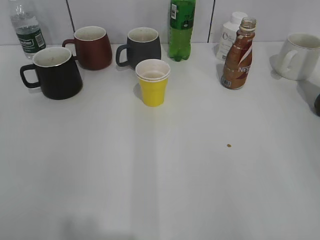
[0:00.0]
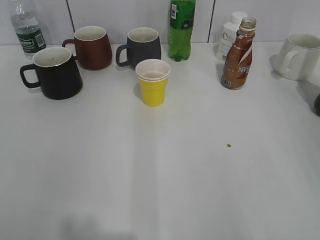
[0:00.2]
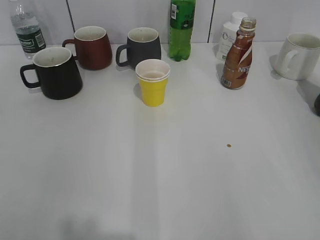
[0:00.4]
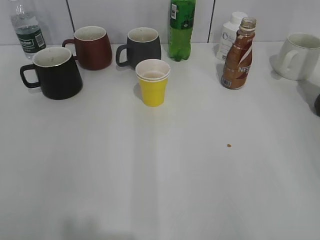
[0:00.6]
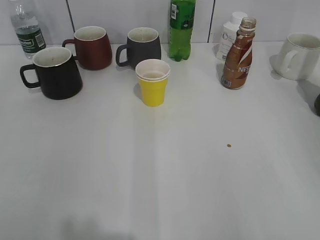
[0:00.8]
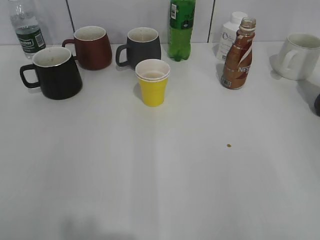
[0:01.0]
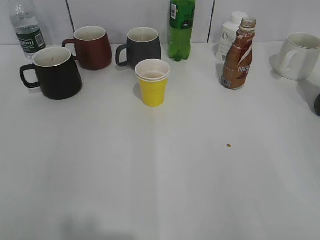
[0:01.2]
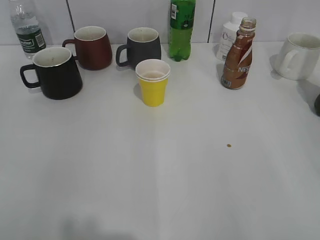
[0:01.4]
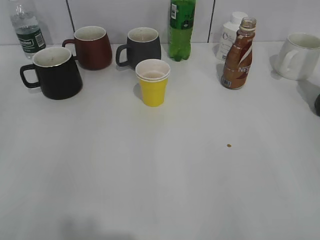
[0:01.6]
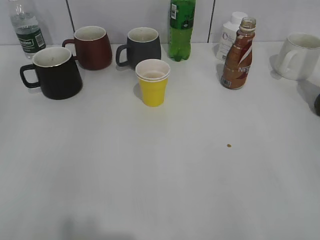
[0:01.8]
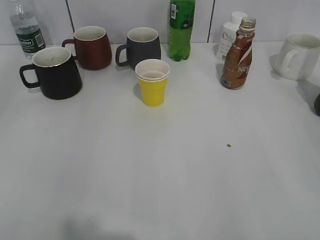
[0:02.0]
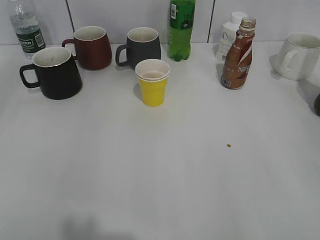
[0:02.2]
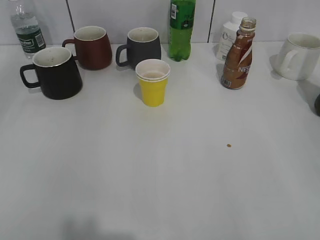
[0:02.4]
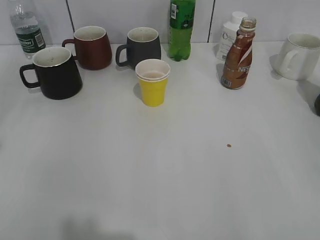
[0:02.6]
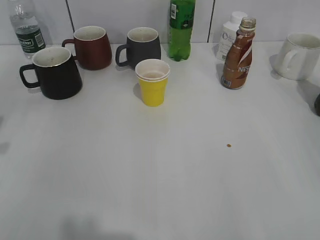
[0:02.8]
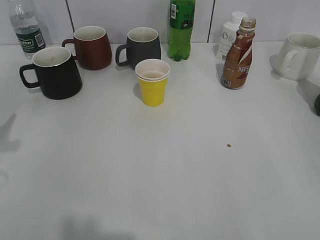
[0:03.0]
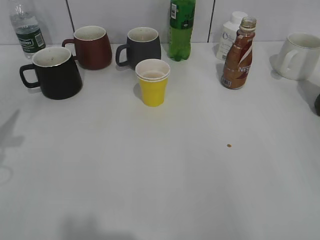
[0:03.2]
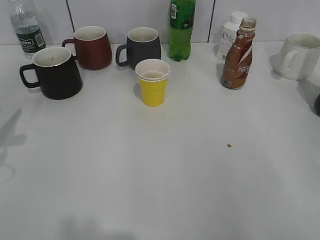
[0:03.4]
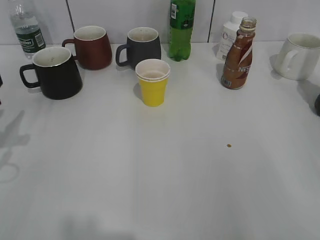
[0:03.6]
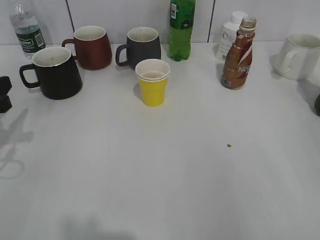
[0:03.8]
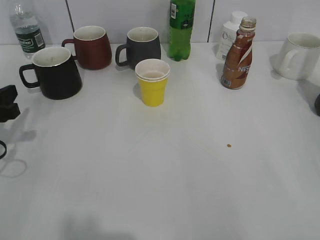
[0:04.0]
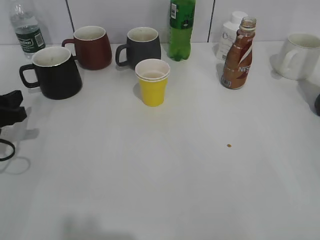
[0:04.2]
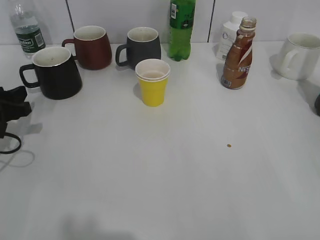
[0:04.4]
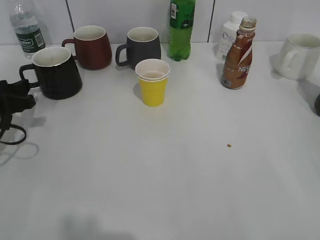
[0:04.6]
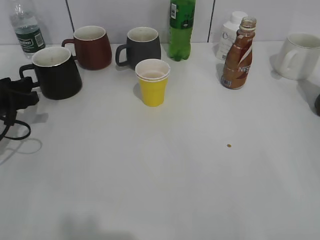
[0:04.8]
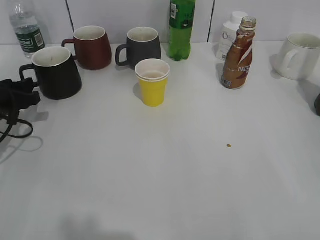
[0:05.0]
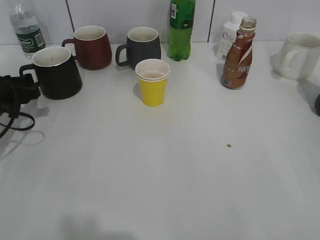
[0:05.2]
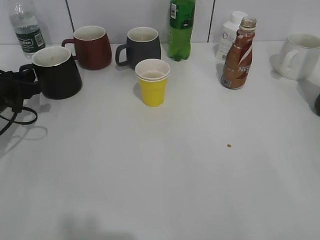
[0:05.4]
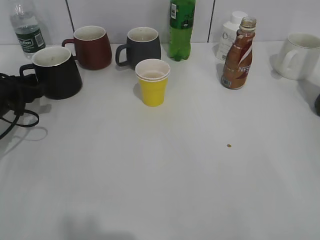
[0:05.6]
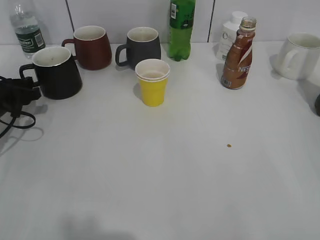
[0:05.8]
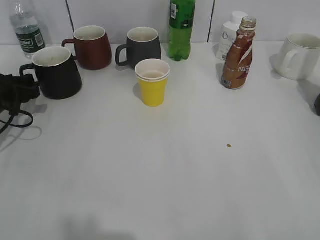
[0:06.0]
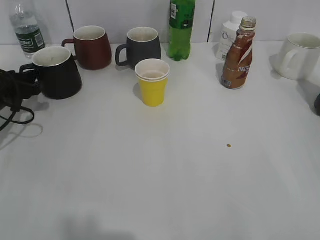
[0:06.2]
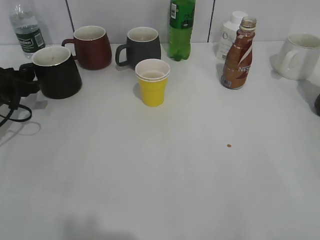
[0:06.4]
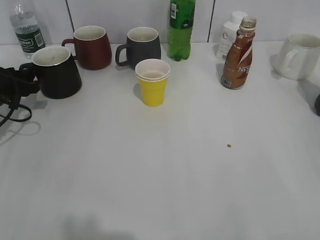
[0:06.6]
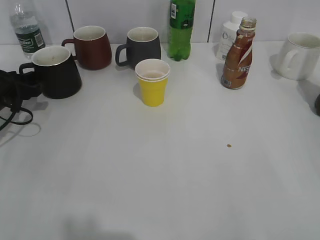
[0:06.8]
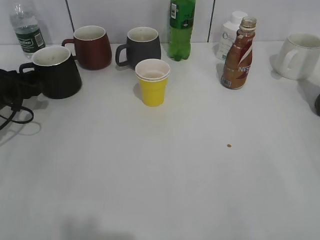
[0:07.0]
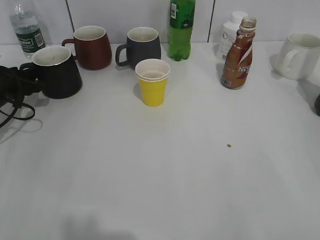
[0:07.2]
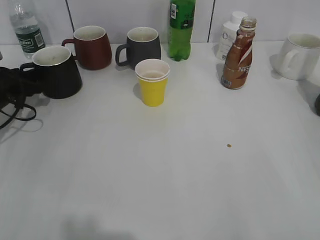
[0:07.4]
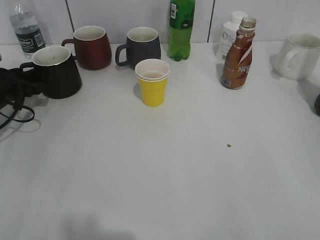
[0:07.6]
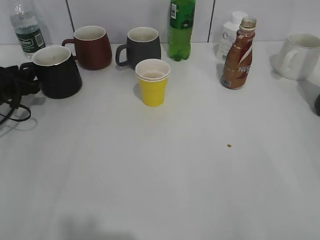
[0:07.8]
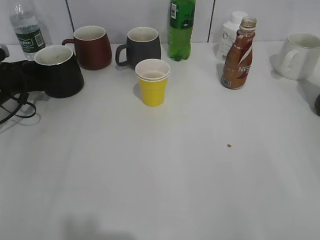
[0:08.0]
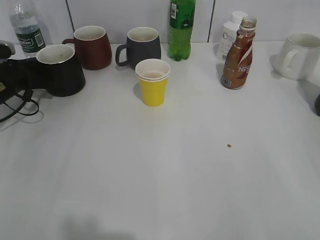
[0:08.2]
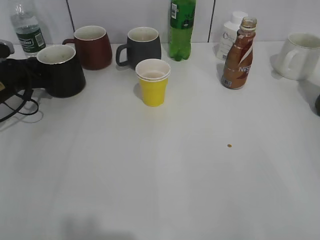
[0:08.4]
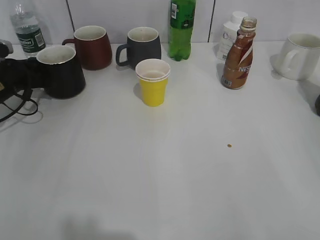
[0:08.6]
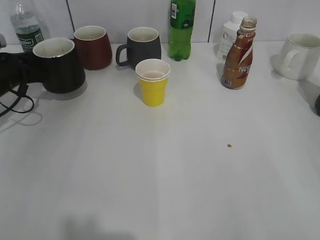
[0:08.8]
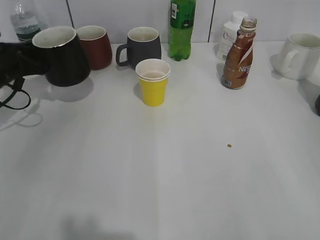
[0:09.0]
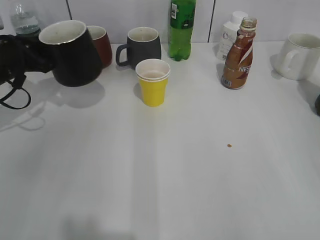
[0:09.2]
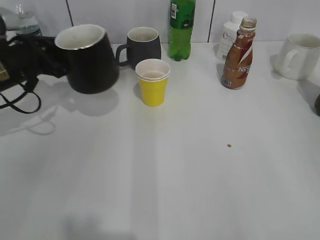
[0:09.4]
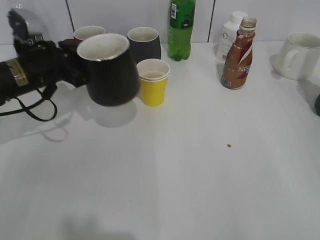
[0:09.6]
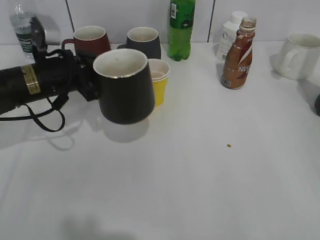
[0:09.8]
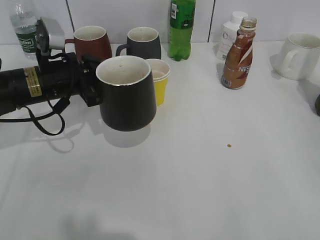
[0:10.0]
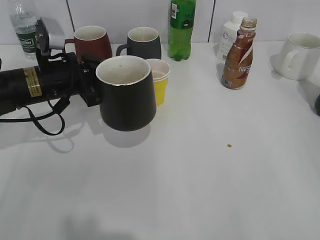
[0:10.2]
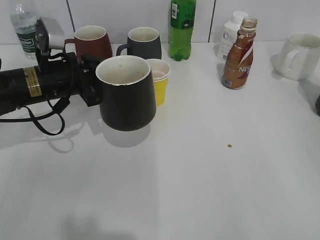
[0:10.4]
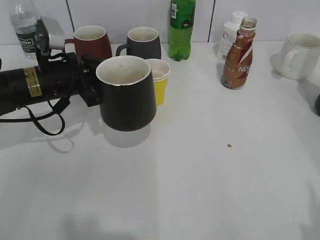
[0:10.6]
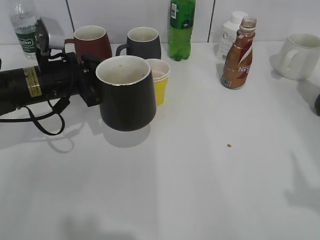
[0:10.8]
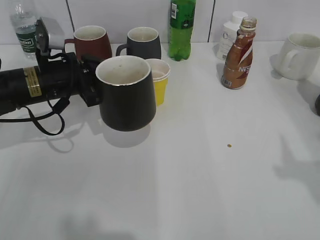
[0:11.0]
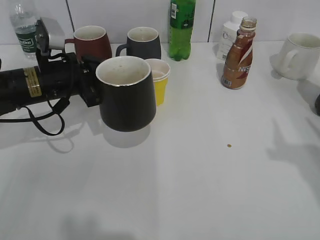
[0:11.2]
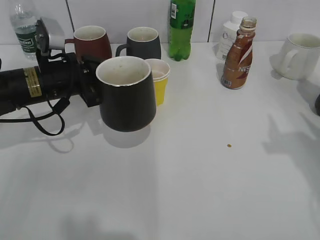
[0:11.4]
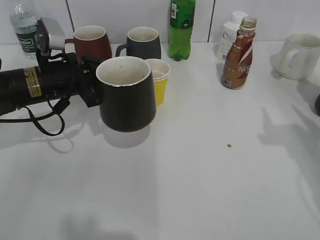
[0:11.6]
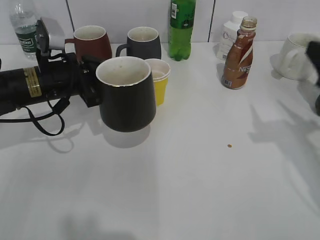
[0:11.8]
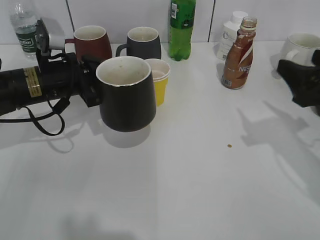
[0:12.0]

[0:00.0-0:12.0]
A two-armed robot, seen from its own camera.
Step, 0:01.4 to 0:08.6: Grasp the black cup with left gripper.
Step, 0:08.8 to 0:10.0: Lift the black cup with left gripper.
0:03.0 to 0:04.4: The left gripper is displaced downward and forward by approximately 15 cm.
0:04.4 to 0:06.0: The left gripper shifts about 5 cm forward.
0:06.0 to 0:07.6: The grippers stay close to where they were, moving slightly.
0:07.6 to 0:09.0: The left gripper closes its fingers.
0:09.0 to 0:10.4: The left gripper shifts some 15 cm to the right and backward.
0:10.4 to 0:12.0: The right gripper shifts approximately 25 cm forward.

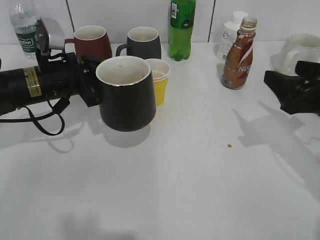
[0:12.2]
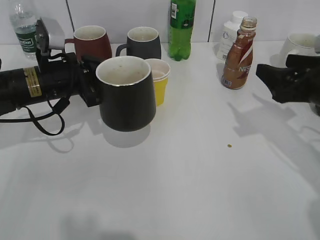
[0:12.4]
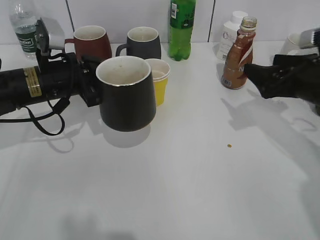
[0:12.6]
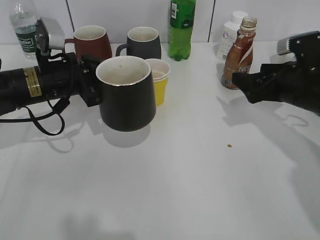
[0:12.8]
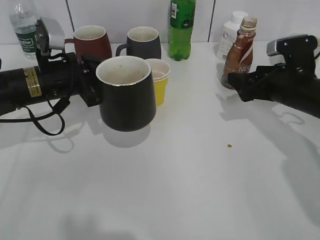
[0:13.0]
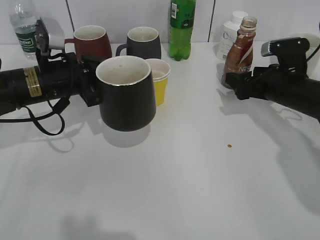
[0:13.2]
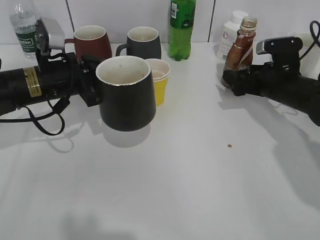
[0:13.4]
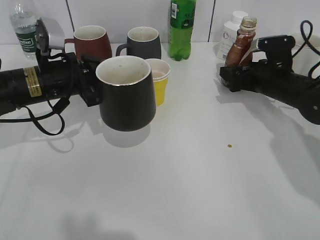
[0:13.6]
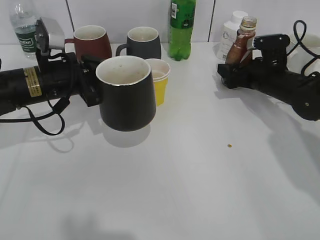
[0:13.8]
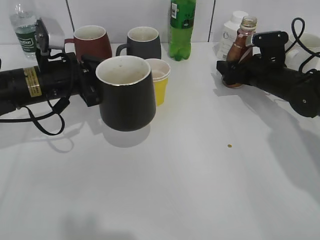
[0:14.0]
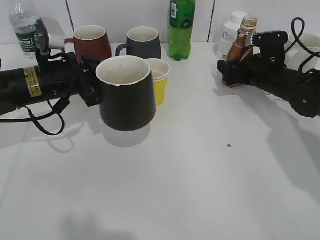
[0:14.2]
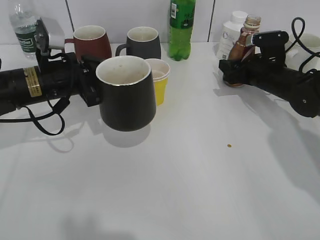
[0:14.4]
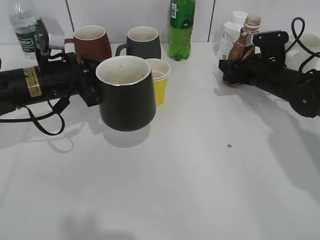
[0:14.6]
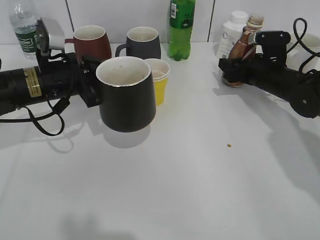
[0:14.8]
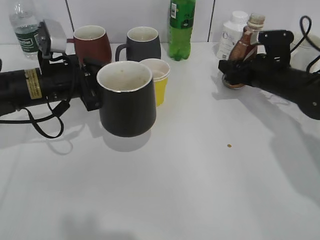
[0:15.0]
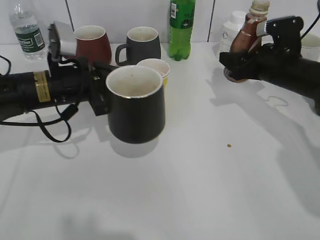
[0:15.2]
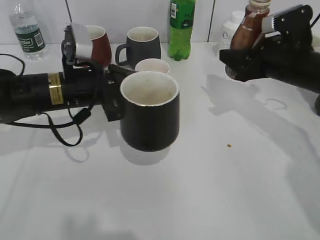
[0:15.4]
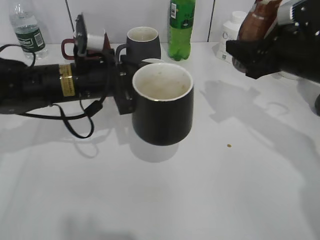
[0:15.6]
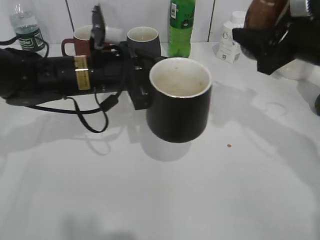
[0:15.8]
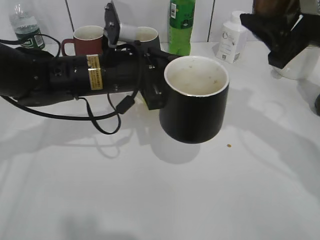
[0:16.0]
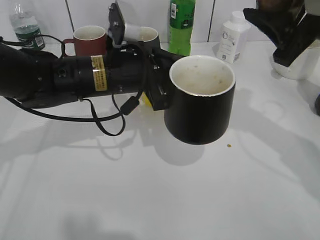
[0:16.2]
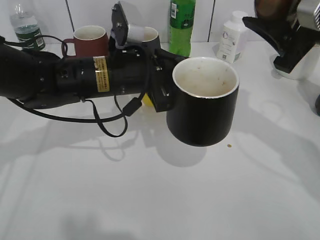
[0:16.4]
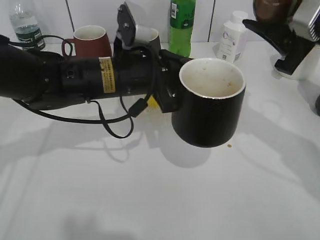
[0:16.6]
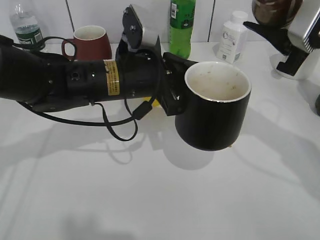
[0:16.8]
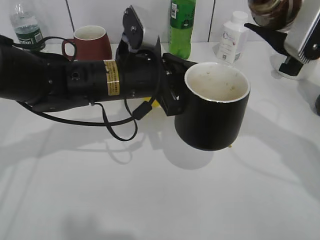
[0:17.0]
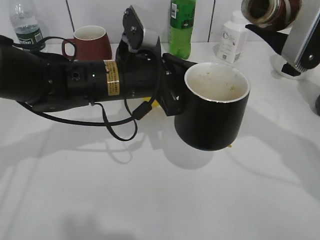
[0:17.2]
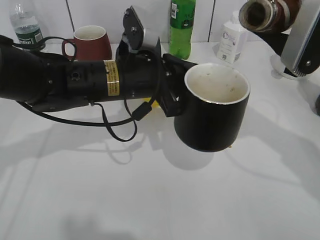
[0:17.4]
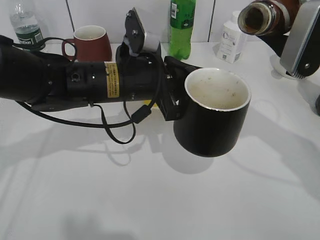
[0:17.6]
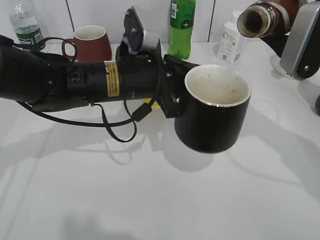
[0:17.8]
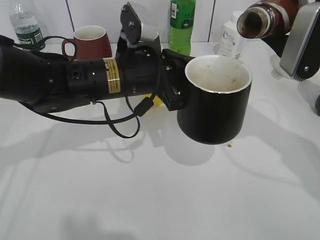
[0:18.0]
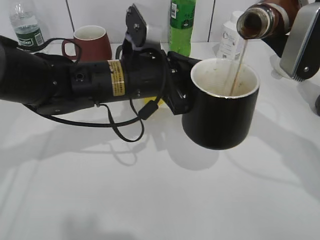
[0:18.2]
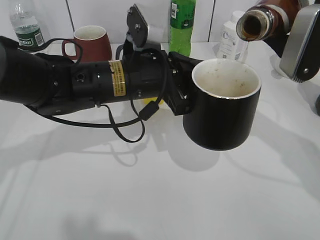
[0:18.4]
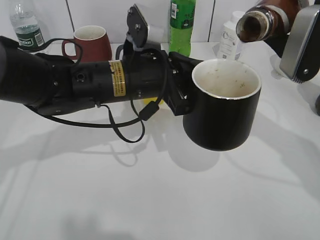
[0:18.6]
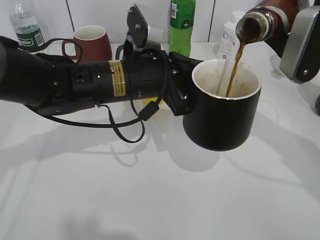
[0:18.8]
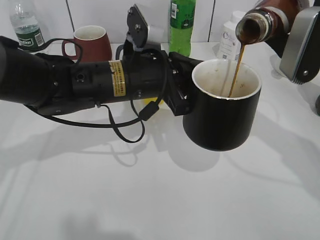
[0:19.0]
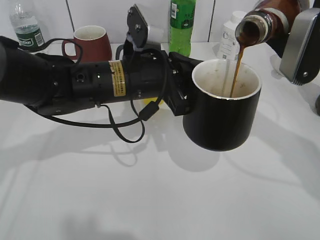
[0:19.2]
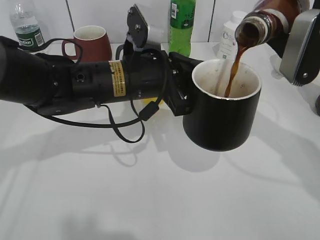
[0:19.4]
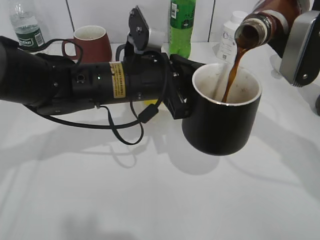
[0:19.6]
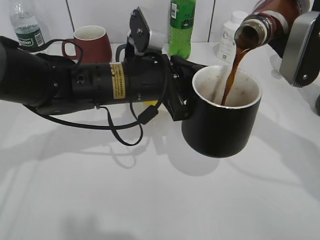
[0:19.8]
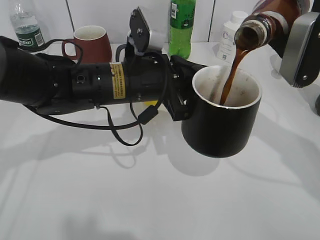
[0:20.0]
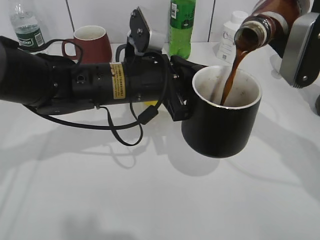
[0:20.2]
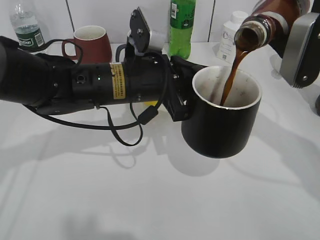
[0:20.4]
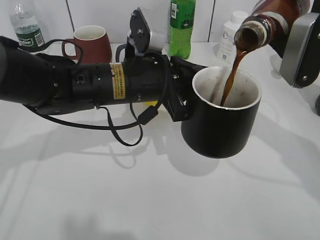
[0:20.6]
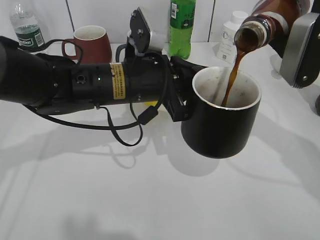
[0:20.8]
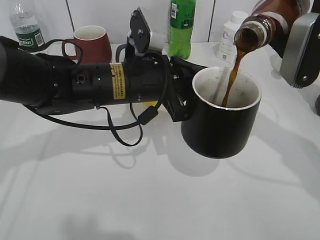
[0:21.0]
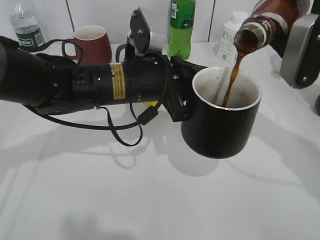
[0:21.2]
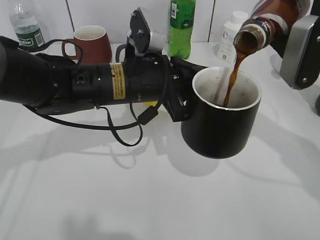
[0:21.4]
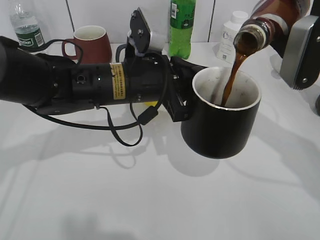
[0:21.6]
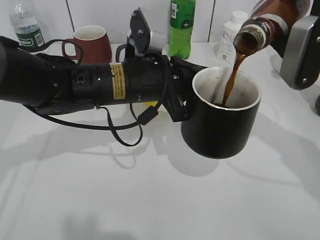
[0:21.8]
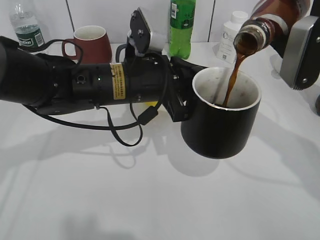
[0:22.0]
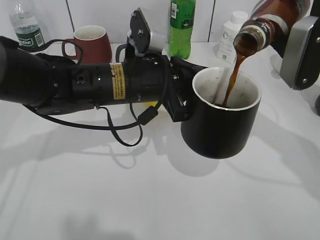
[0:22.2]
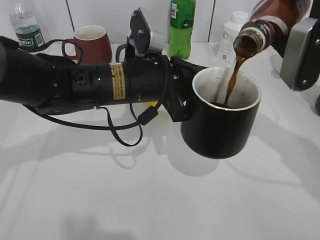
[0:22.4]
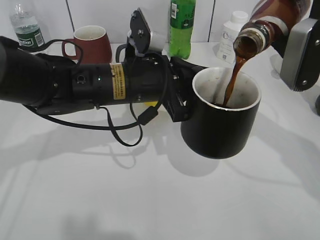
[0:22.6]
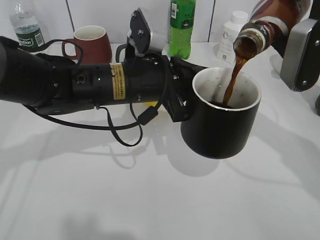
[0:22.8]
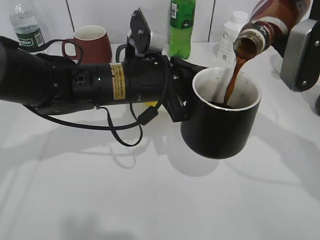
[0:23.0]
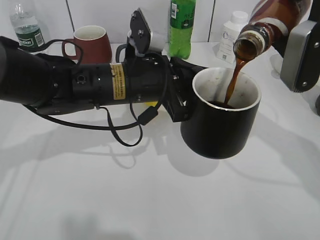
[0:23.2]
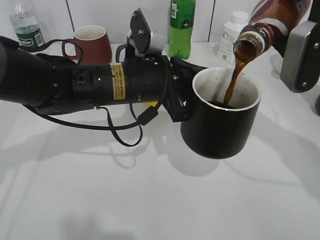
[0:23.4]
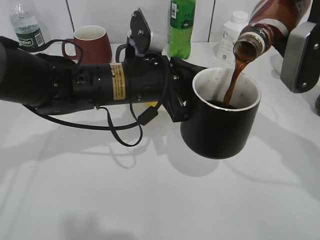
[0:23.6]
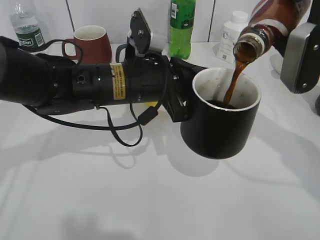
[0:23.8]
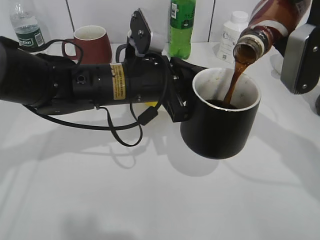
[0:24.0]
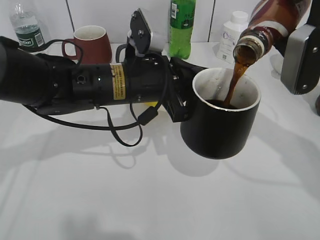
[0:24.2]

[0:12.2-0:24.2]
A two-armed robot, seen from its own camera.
Step, 0:12.2 to 0:14.6: Grasp the bottle with coffee with right gripper.
0:12.2 to 0:13.8: The right gripper goes roughly 20 cm forward and downward, and opens up.
0:13.8 to 0:15.2: The right gripper closes.
0:15.2 to 0:16.6: The right gripper goes roughly 20 cm upward and backward. Meanwhile the left gripper goes approximately 10 cm to the right.
0:18.2 to 0:19.8: The grippers make only small movements.
0:19.8 to 0:21.2: Neither gripper changes place.
0:21.2 to 0:22.6: Both grippers stay put.
0:22.6 to 0:24.2: The grippers move only a little.
